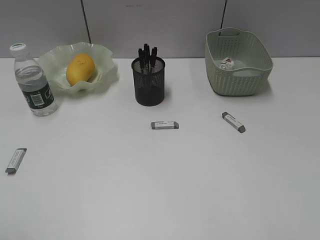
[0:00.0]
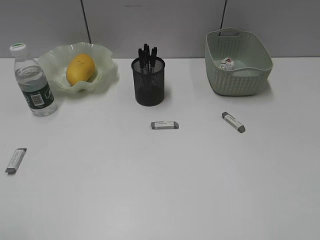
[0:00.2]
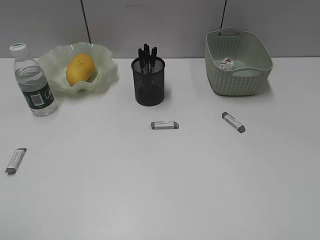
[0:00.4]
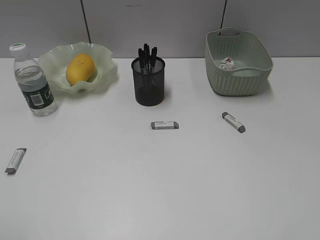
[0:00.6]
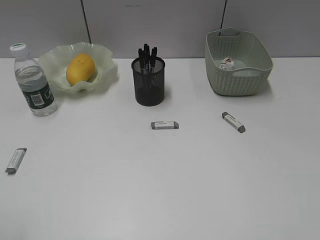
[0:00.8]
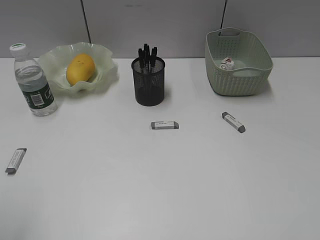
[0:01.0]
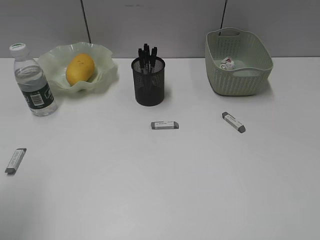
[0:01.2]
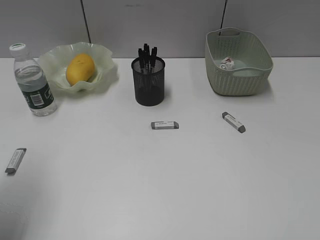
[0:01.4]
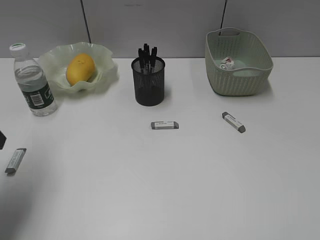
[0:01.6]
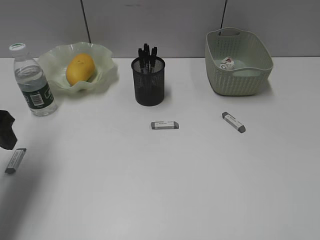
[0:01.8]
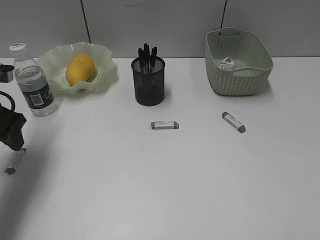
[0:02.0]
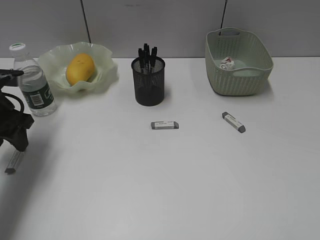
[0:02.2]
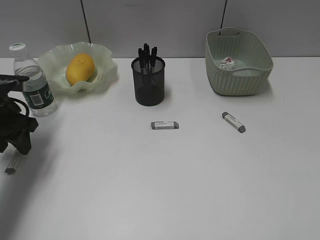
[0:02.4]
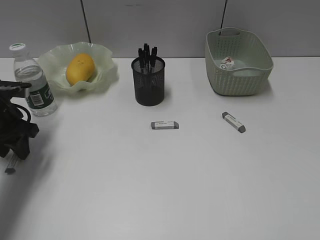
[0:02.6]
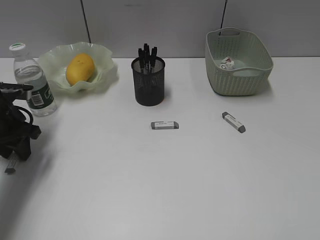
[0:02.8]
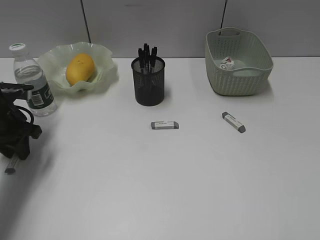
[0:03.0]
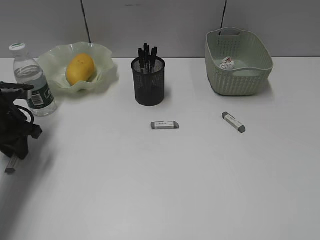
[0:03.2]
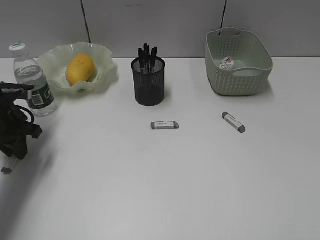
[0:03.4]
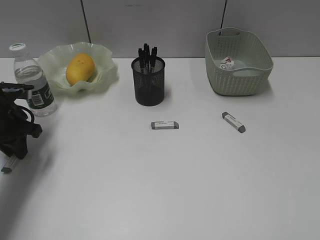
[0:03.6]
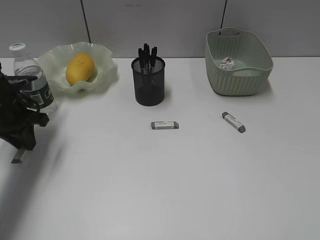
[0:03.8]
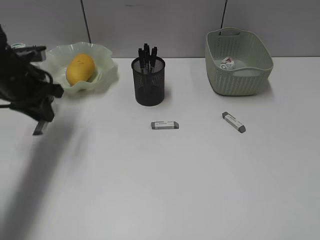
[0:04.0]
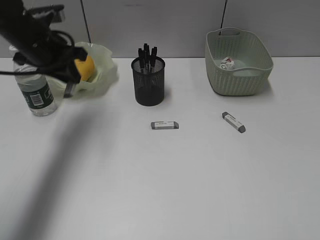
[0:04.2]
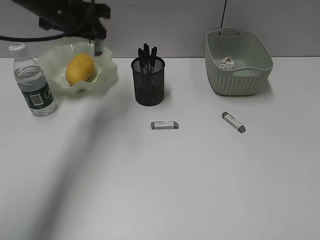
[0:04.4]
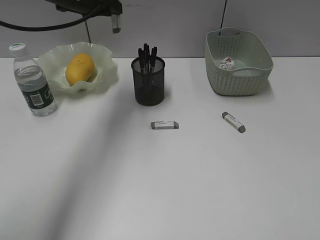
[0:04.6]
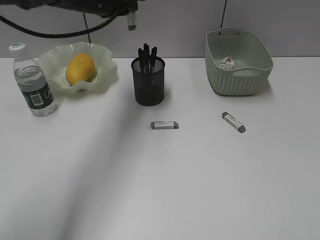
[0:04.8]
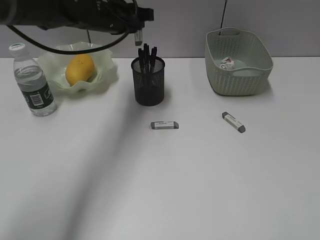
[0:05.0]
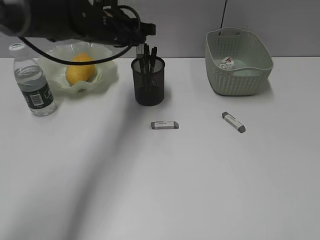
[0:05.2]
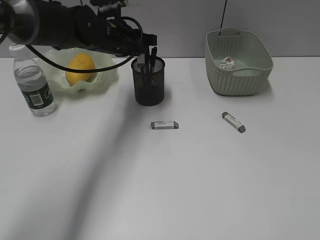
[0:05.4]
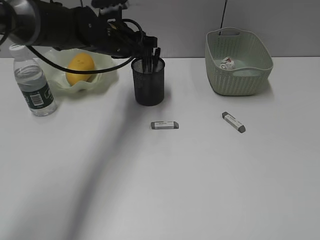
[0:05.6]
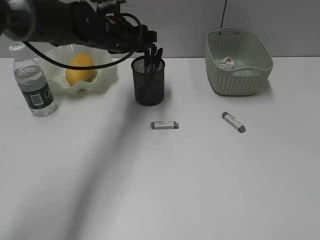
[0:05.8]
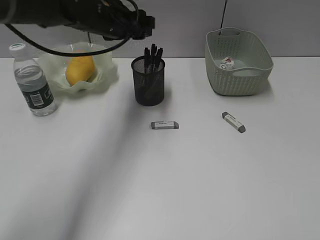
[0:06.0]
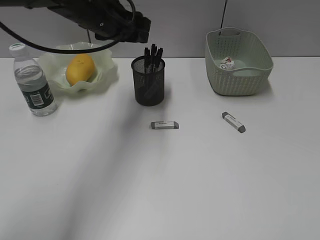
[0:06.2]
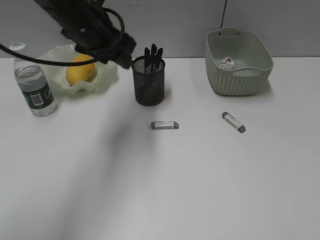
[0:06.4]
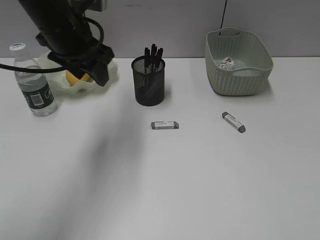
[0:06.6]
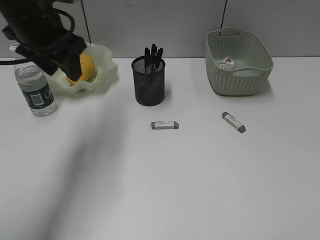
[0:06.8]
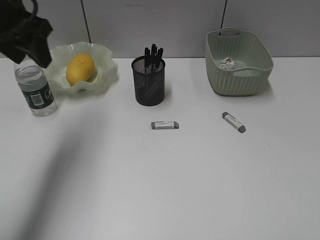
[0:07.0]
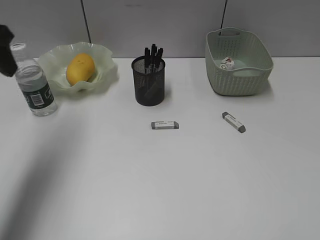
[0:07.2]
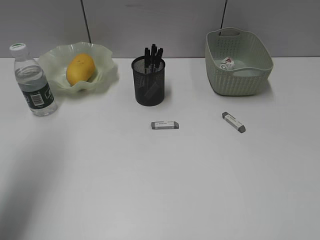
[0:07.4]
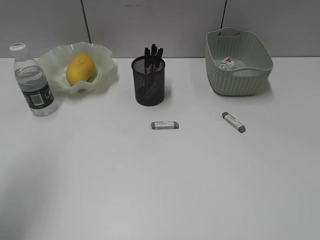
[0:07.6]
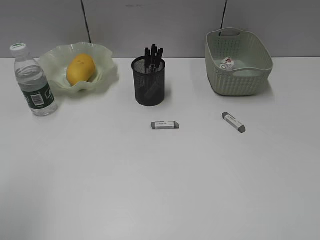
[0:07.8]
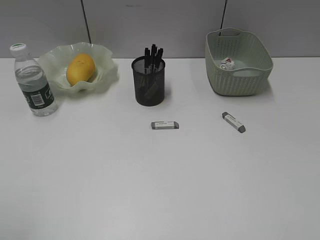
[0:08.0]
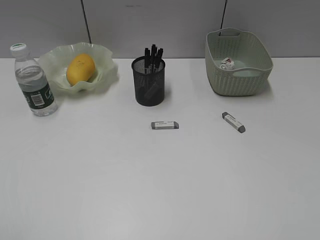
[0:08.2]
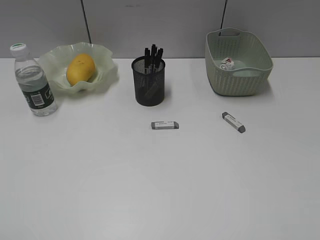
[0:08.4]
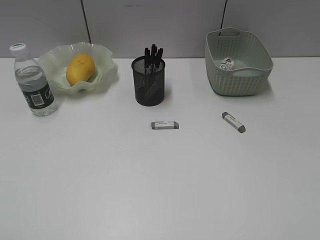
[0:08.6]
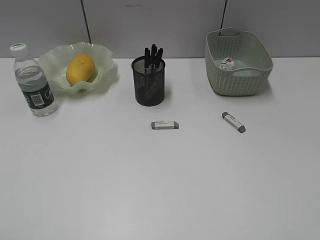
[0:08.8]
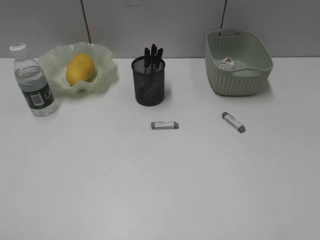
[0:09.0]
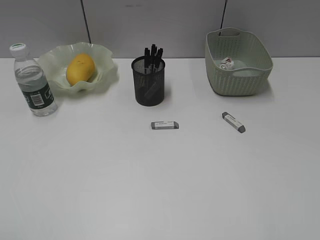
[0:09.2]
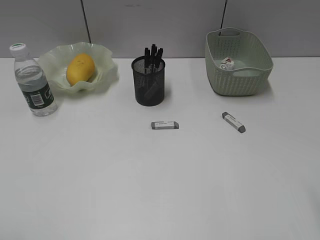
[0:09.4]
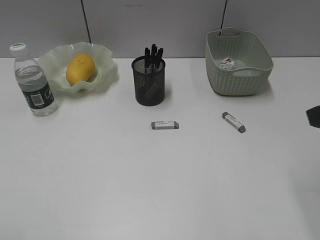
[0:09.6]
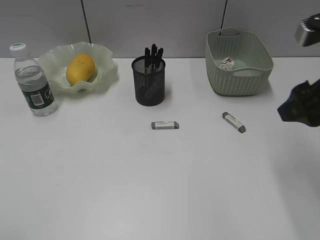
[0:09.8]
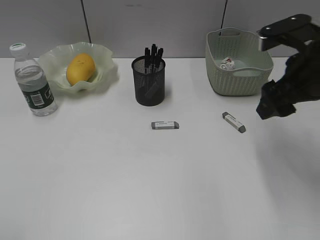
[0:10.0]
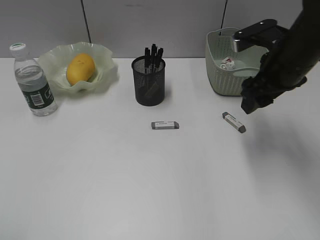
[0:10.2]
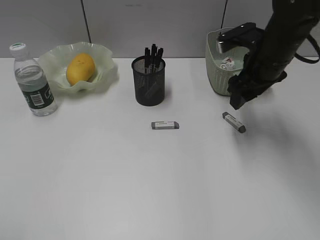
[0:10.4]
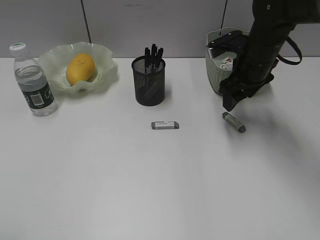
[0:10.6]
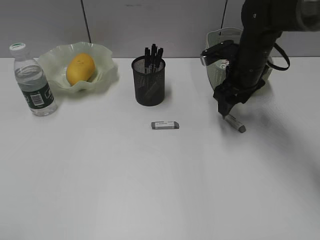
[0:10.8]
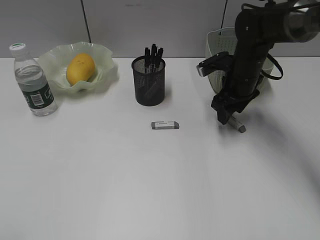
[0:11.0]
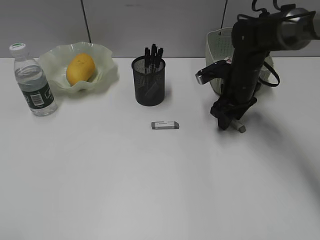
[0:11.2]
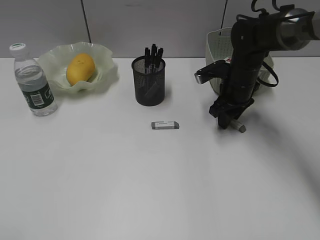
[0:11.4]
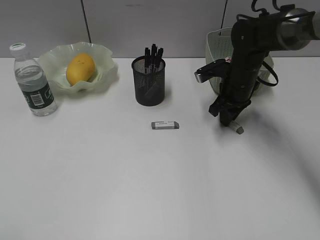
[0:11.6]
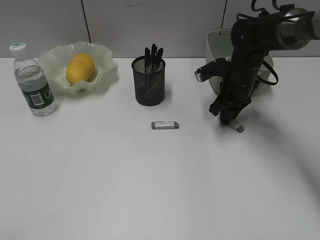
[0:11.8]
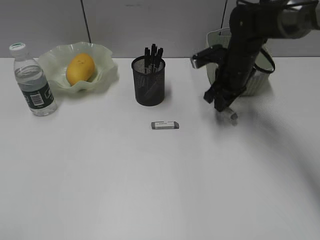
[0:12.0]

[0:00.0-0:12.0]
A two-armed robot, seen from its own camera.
Step, 0:00.0 to 0:03.6: Grasp the eraser with left gripper.
Step, 0:03.8 to 0:05.8: Place the eraser in pen holder with left gripper.
Step, 0:06.0 to 0:11.6: Grasp the eraser with right gripper.
0:00.0 to 0:01.6: The left gripper is displaced forward by roughly 20 cm.
0:01.6 to 0:03.0: The left gripper moves forward and downward, some 15 cm, and closes.
0:03.0 to 0:04.4: The left gripper moves upward, to the right and forward, some 20 cm.
0:04.4 to 0:06.0: The left gripper goes approximately 10 cm to the right, goes downward and returns, some 5 cm each way, and opens up.
0:06.0 to 0:07.6: The left gripper travels backward and to the left by roughly 30 cm.
0:07.6 to 0:09.0: The left gripper moves backward, about 20 cm.
0:09.0 to 0:10.4: The right gripper is displaced forward by approximately 35 cm.
0:10.4 to 0:12.0: The right gripper moves downward and forward, about 10 cm, and closes its fingers.

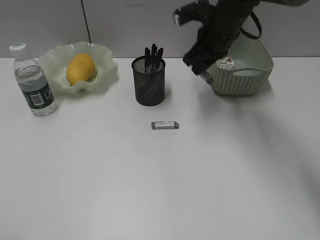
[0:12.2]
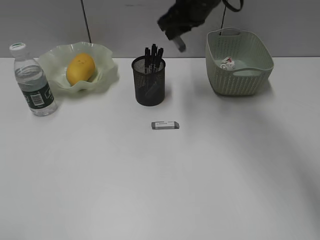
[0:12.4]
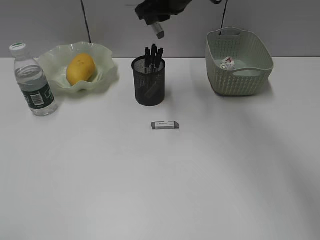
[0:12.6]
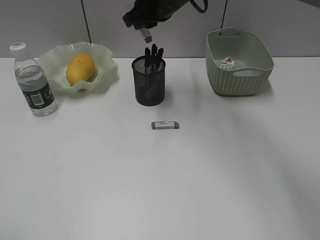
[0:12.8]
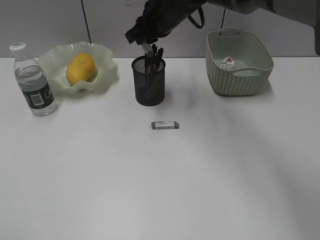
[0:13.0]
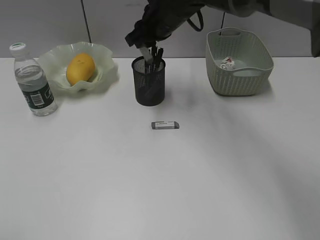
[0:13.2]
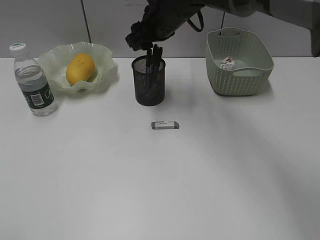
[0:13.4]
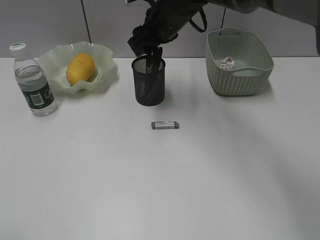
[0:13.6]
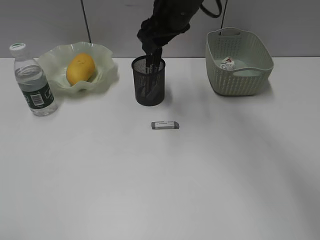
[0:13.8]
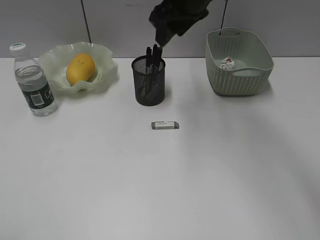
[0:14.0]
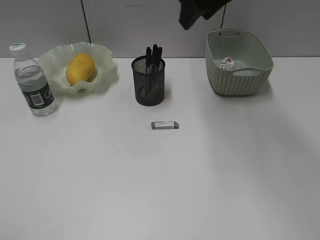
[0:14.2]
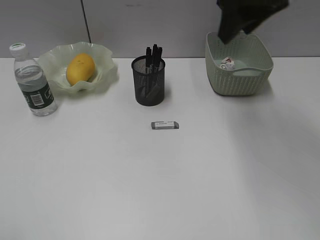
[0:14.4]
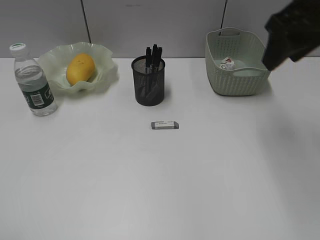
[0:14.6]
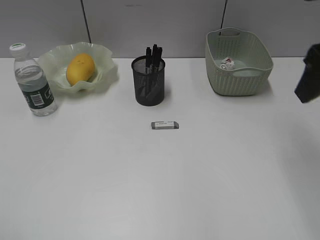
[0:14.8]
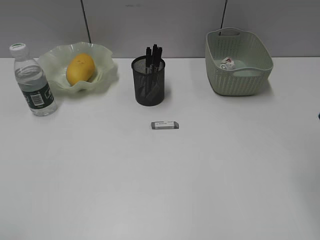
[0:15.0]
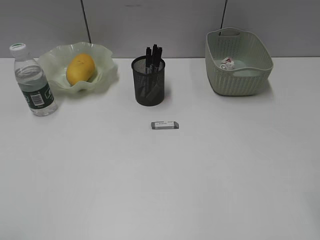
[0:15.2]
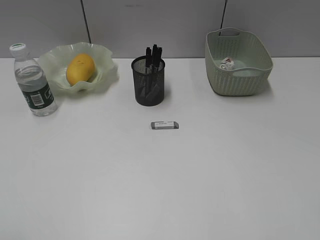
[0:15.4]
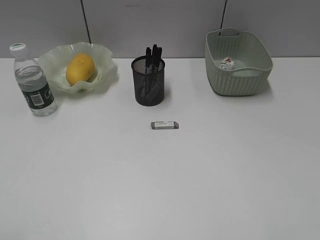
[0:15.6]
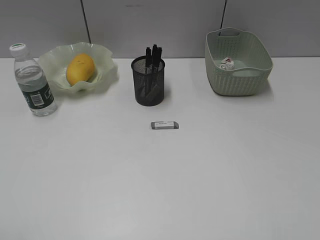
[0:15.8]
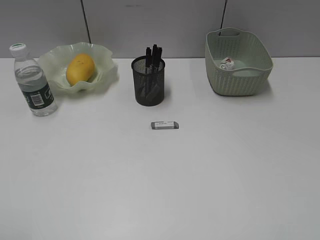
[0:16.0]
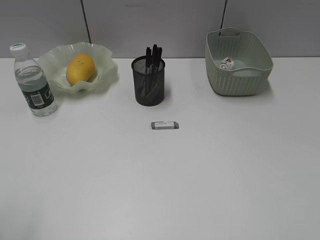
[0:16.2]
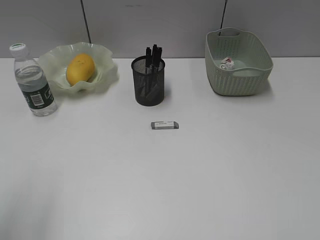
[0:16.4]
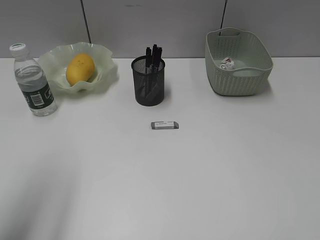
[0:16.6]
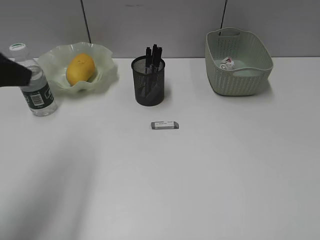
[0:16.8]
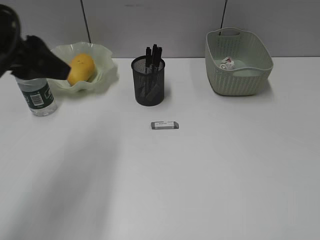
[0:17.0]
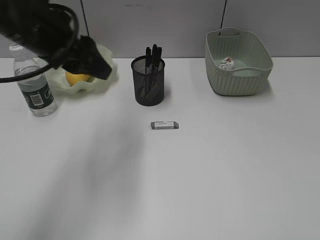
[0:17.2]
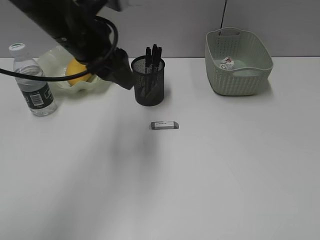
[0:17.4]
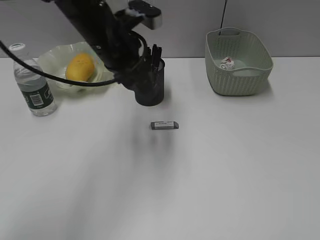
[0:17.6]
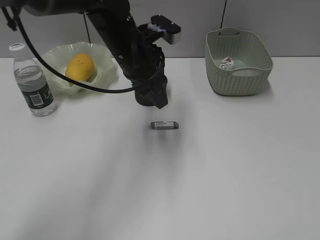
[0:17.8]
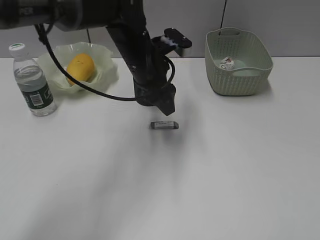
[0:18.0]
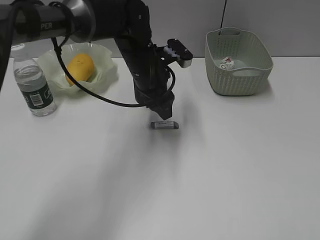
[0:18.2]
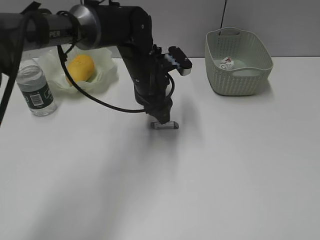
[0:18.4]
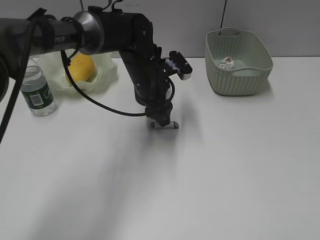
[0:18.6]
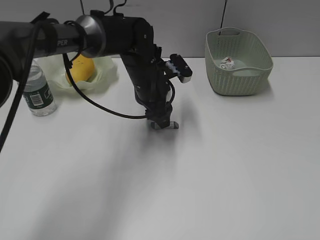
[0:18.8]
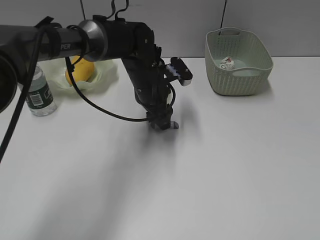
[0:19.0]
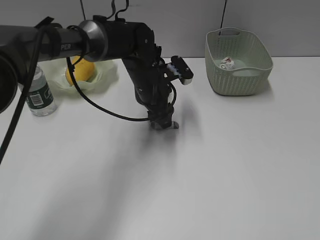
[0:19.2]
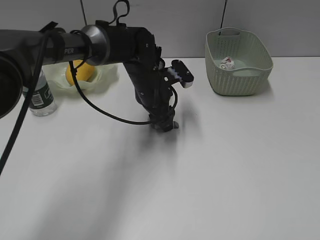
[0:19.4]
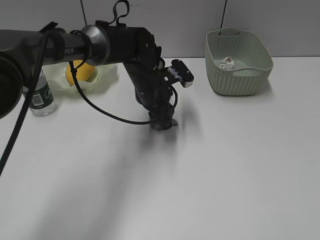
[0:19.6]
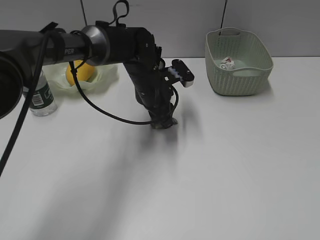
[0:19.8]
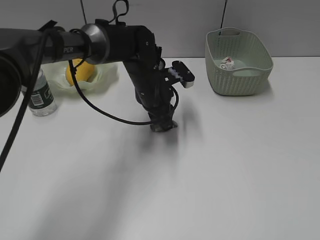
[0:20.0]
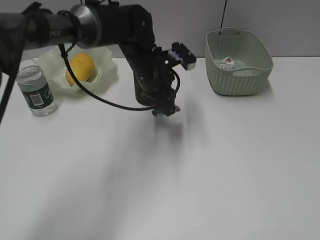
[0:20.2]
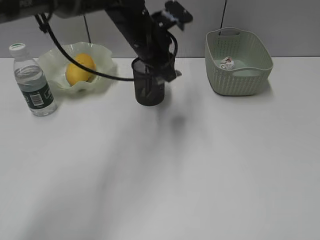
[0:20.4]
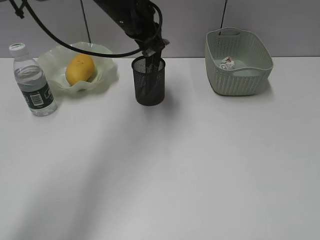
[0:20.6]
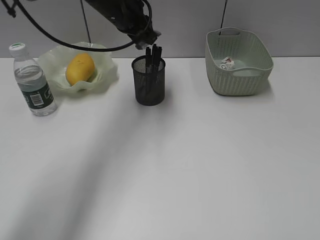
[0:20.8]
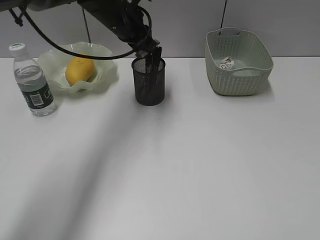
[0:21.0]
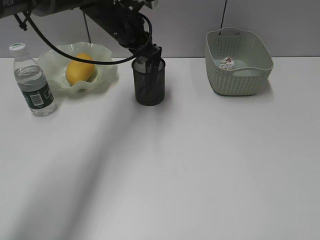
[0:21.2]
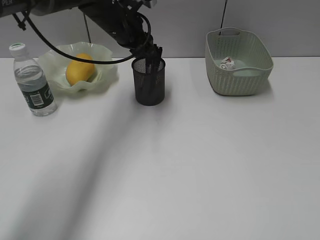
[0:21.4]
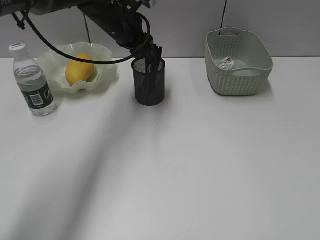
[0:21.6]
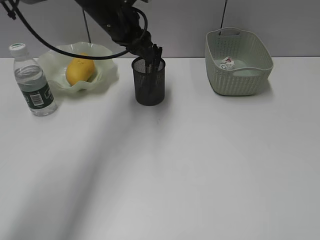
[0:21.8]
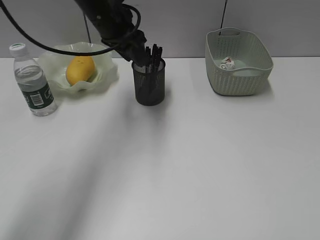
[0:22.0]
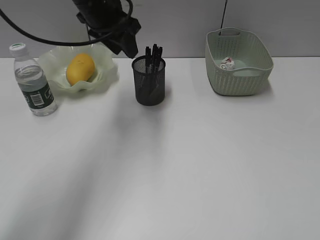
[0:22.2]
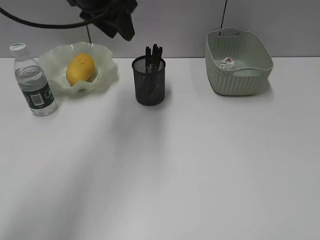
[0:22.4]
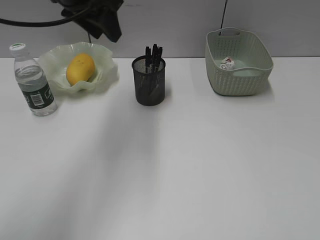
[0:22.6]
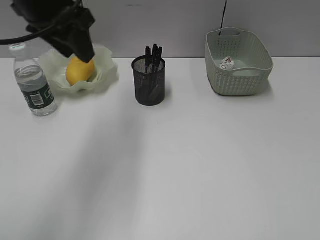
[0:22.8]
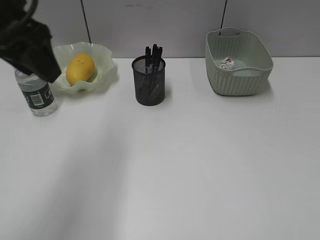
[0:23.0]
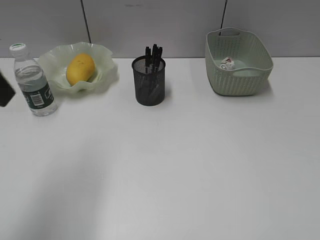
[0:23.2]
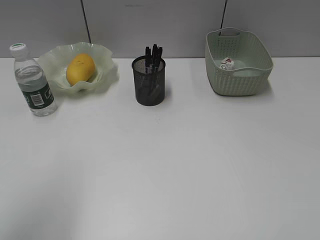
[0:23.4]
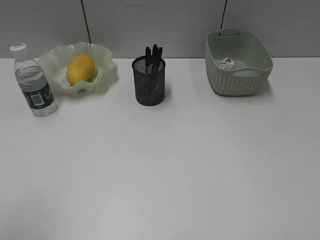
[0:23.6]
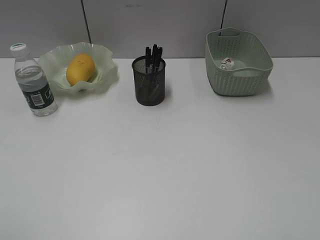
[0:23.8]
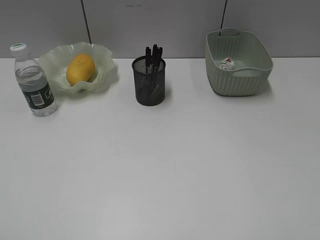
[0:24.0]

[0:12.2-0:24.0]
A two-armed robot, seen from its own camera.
Step, 0:12.2 to 0:13.6: Place the eraser in pen holder with right gripper.
Step, 0:13.8 to 0:19.8: Grasp the eraser with left gripper.
Step, 0:20.0 to 0:21.6: Place the eraser in pen holder with left gripper.
0:12.2 to 0:13.6: The right gripper moves to the left, roughly 10 cm, and opens up.
0:13.6 to 0:15.2: The right gripper goes about 40 cm backward and to the right.
0:15.2 to 0:16.6: The left gripper is displaced forward by approximately 15 cm.
0:16.6 to 0:18.2: The left gripper moves to the right, forward and downward, some 40 cm.
0:18.2 to 0:19.6: The left gripper moves downward, approximately 5 cm.
0:19.6 to 0:21.0: The left gripper is displaced upward, forward and to the left by roughly 15 cm.
0:21.0 to 0:22.6: The left gripper travels upward, backward and to the left by about 15 cm, and opens up.
0:22.6 to 0:24.0: The left gripper heads backward and to the left, covering approximately 40 cm.
